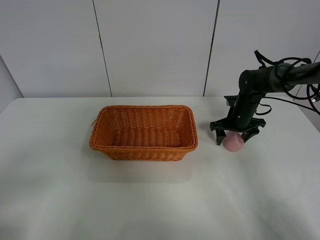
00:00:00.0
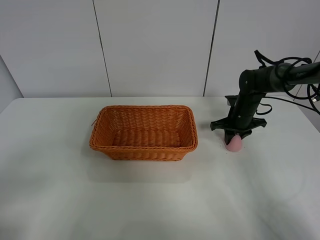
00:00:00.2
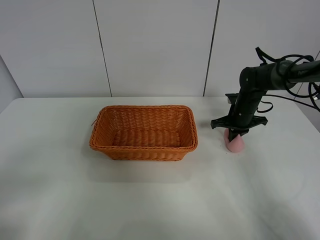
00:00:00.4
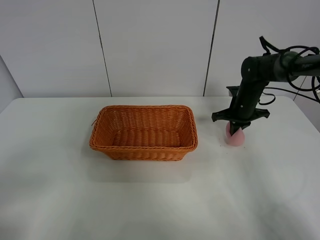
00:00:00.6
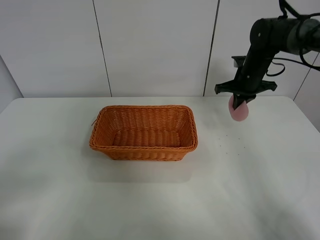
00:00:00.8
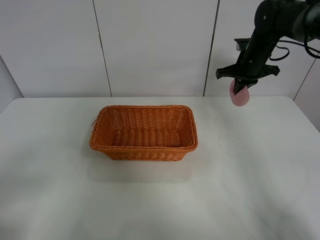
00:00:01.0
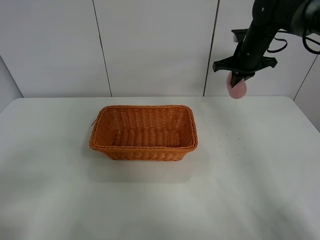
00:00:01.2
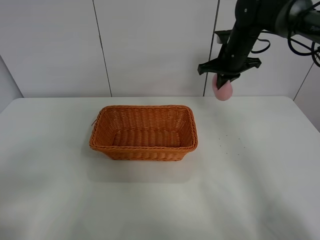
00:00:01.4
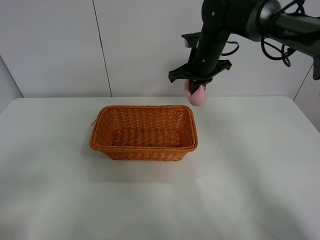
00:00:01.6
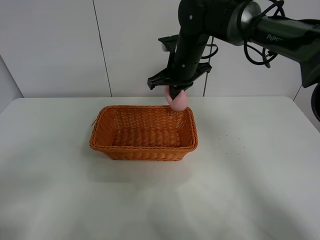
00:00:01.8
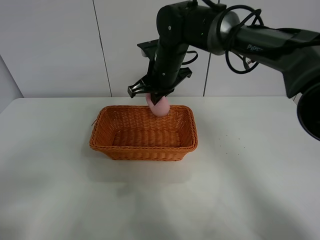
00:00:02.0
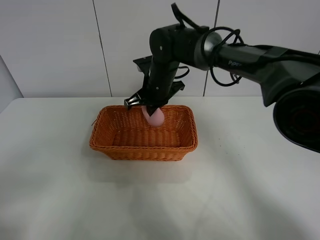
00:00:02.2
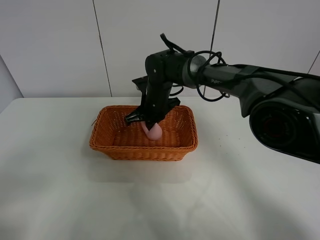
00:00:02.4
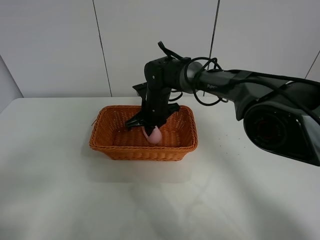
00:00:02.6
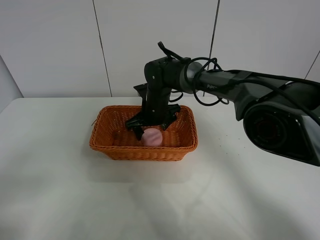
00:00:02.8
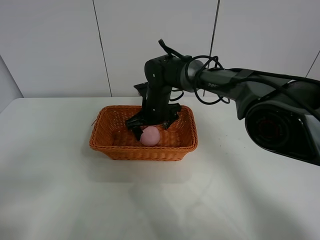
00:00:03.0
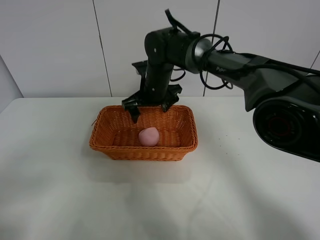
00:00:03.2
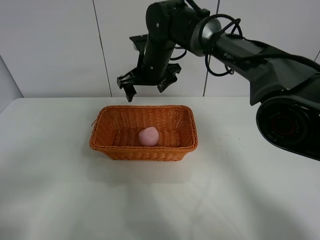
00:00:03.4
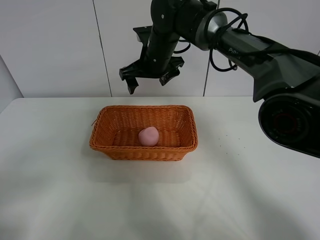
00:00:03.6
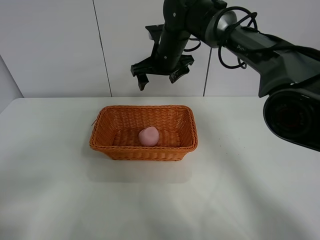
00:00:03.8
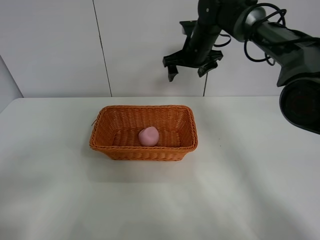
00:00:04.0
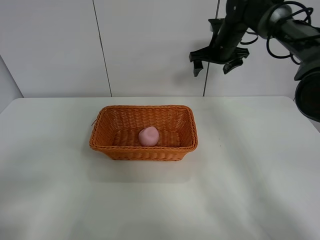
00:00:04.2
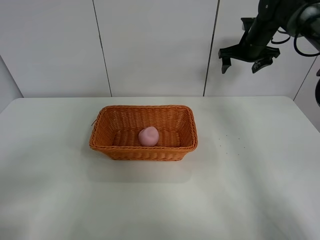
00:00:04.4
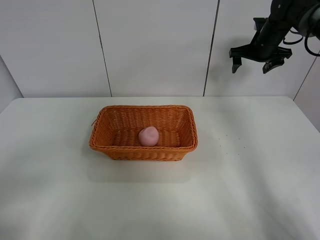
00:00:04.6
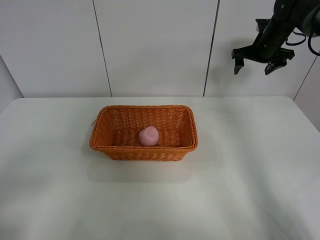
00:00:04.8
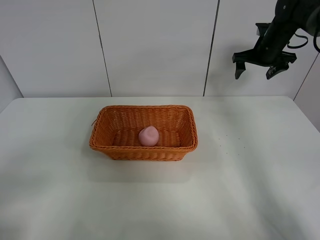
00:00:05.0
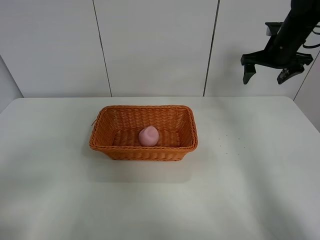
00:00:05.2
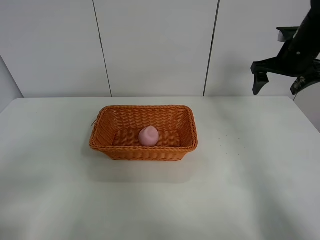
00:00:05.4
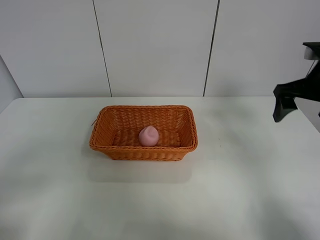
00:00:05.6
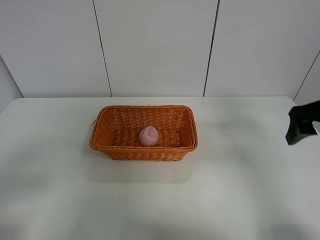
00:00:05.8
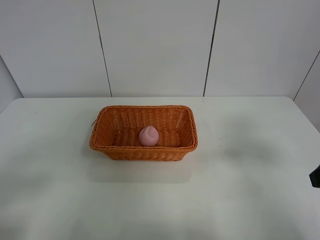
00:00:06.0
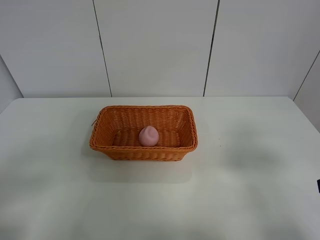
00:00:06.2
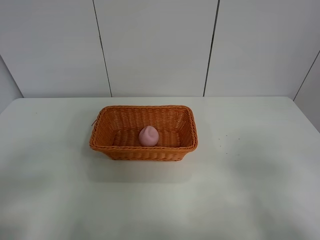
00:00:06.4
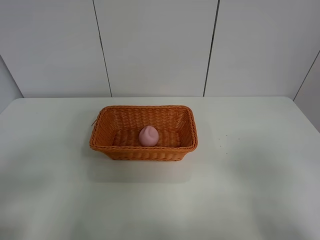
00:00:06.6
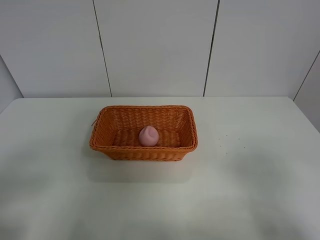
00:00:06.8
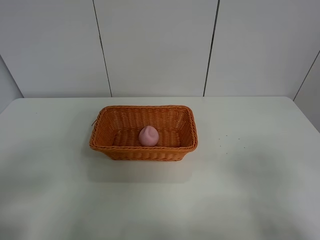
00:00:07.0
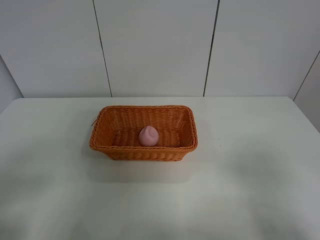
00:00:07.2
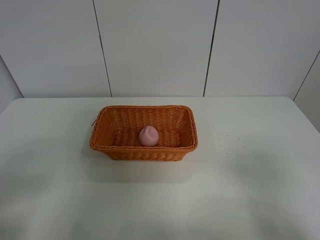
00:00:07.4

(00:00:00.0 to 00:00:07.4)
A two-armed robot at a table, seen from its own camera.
Step, 00:00:00.4 - 00:00:03.4: Place the peach in the basket with right gripper.
00:00:00.0 - 00:00:01.4: The right gripper is displaced upward by some 15 cm, and closes.
00:00:01.4 - 00:00:03.0: The right gripper goes roughly 20 cm to the left and downward, and opens its fingers.
00:00:03.0 - 00:00:04.4: The right gripper is displaced to the right, upward and forward by about 30 cm.
00:00:04.4 - 00:00:06.0: The right gripper goes roughly 40 cm backward.
00:00:06.0 - 00:00:07.4: The right gripper goes approximately 10 cm backward.
